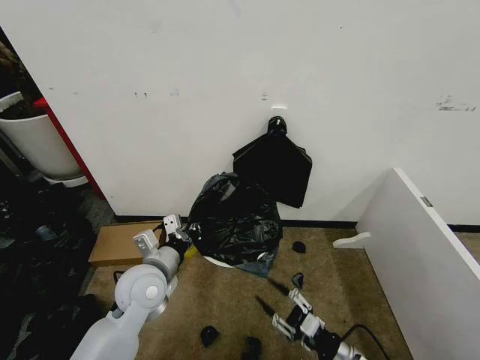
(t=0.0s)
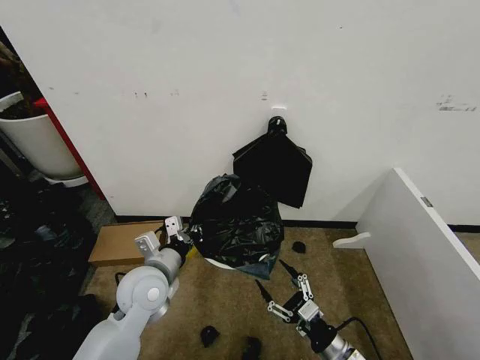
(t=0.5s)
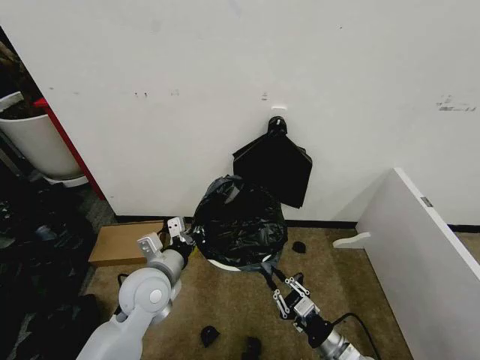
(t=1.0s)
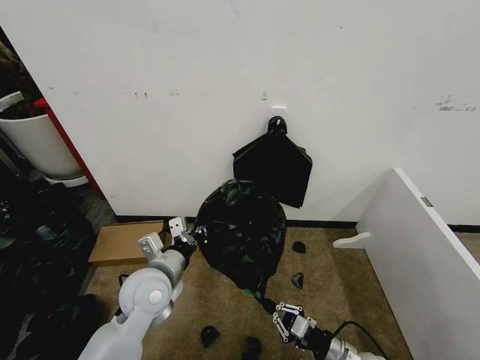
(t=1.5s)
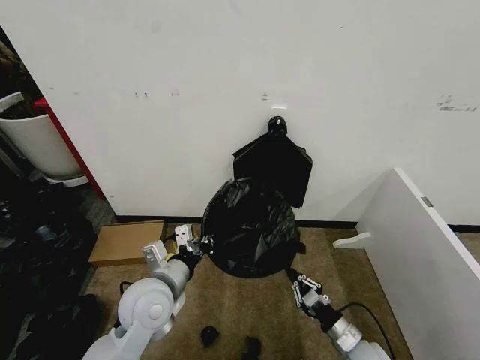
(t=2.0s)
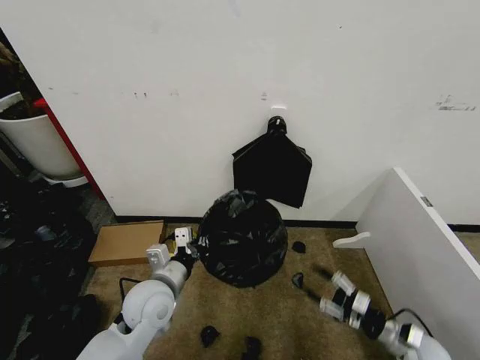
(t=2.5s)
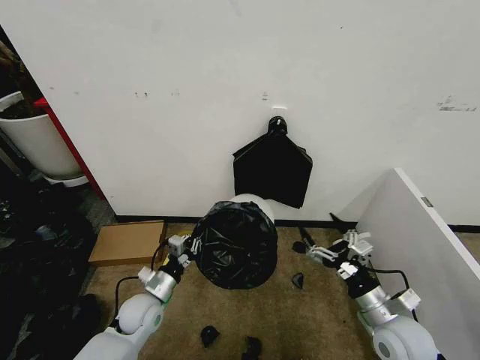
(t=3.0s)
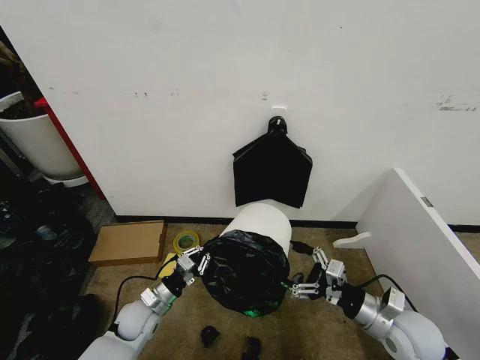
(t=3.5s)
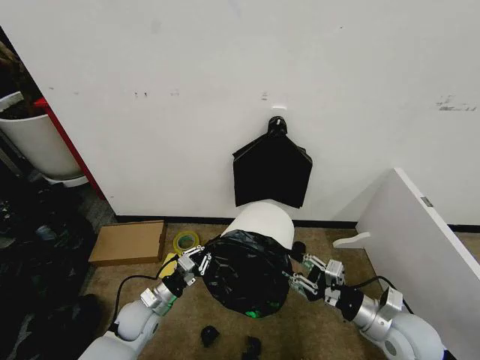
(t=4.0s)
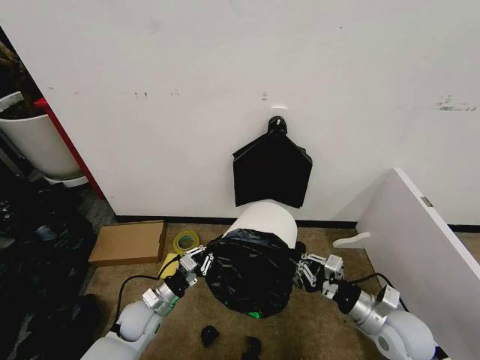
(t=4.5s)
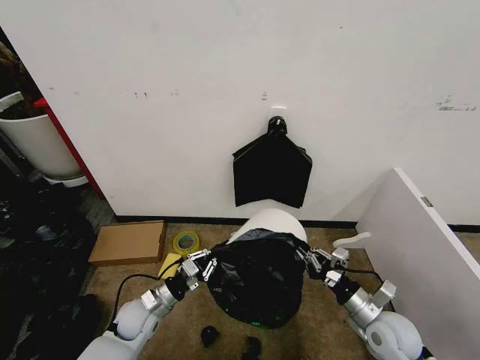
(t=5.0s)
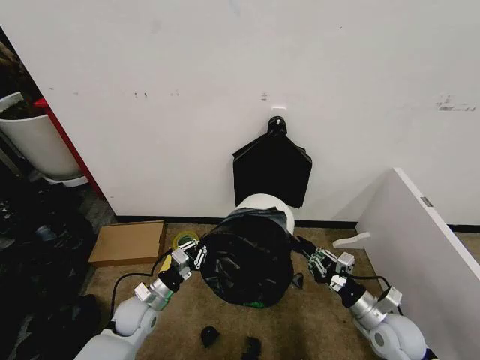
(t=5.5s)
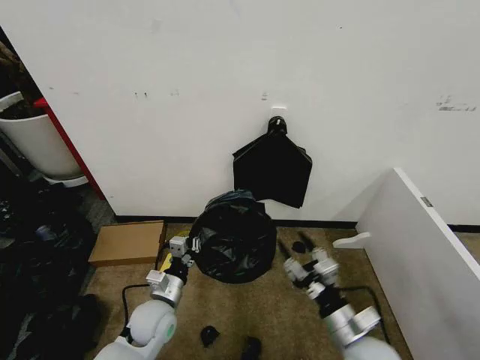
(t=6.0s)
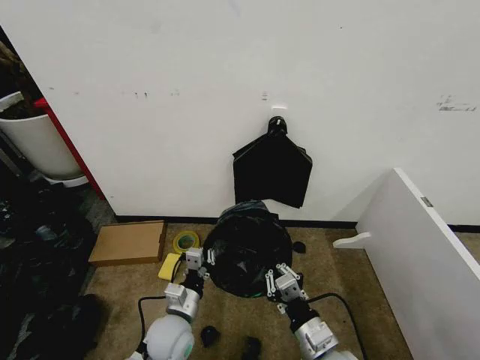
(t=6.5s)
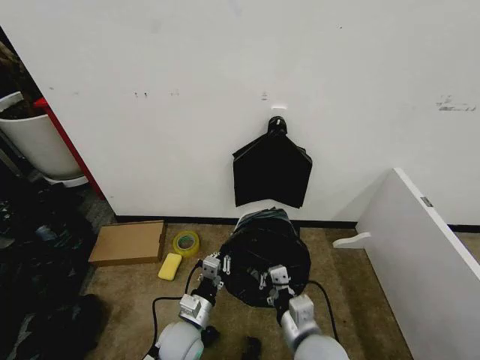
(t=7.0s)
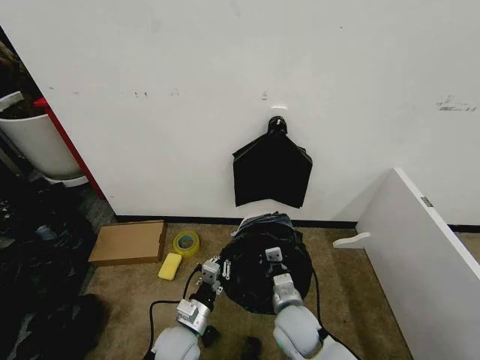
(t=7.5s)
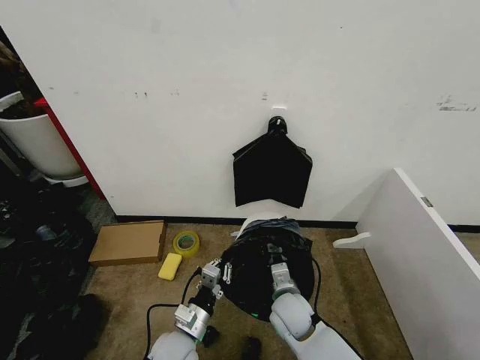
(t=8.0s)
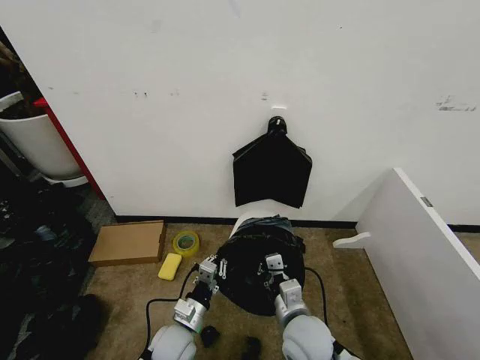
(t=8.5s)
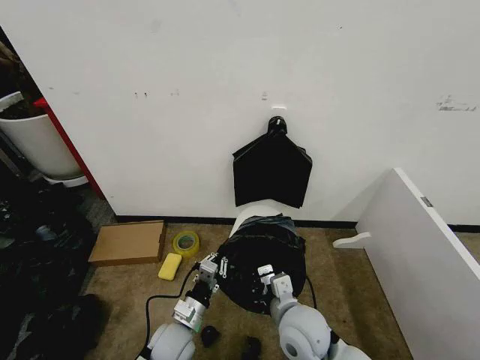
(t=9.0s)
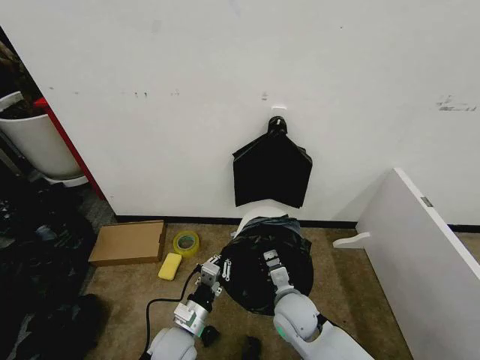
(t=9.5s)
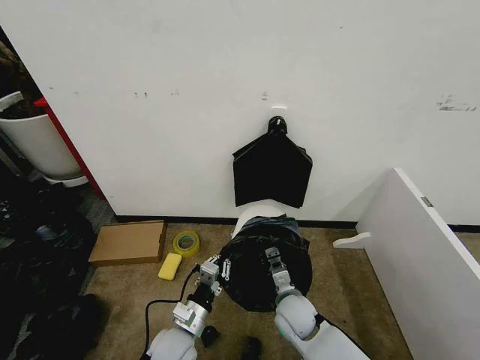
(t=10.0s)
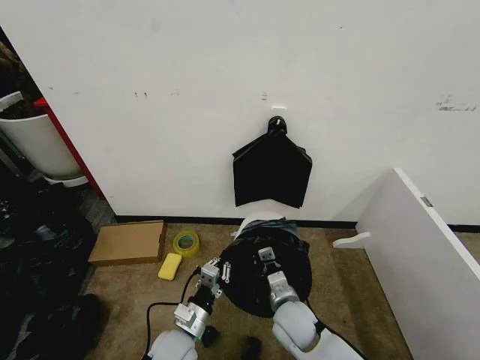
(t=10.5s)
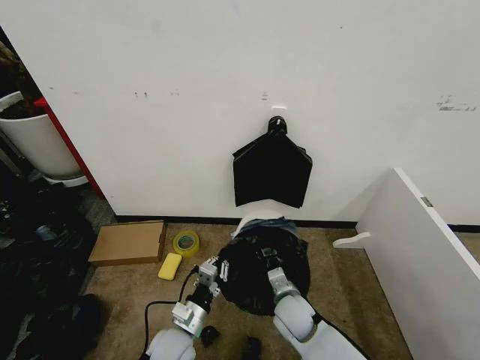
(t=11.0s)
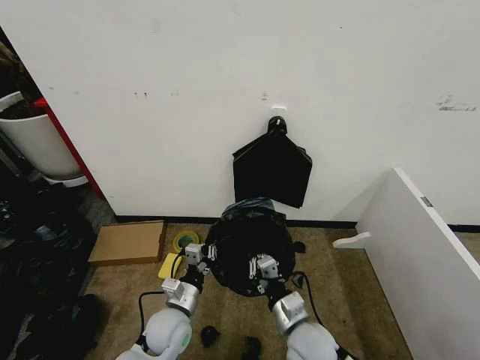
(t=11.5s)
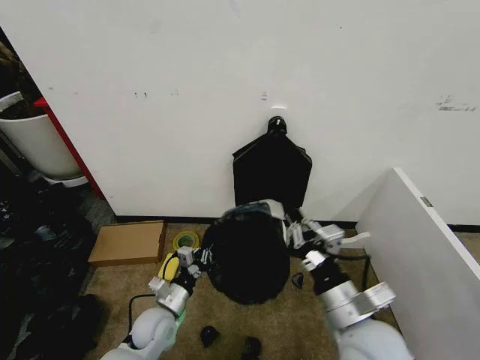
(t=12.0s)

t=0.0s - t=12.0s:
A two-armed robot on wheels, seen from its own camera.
Task of the whole recording: Place the garbage bag over the trash bin.
t=0.0s - t=2.0s: The right gripper changes place by roughly 5 cm, and closes.
t=2.0s - t=4.0s: The right gripper is displaced upward by about 15 cm, and opens its fingers. Meanwhile the left gripper moves downward and to the left, approximately 20 cm.
t=4.0s - t=6.0s: The left gripper changes place by roughly 5 cm. Meanwhile the right gripper goes roughly 5 cm to the left, and closes, then opens again.
t=6.0s - t=8.0s: The left gripper moves backward and to the right, some 10 cm. The right gripper travels to the left, forward and downward by approximately 20 cm, and closes its fingers.
t=8.0s - t=10.0s: The right gripper moves about 10 cm upward and comes back.
t=10.0s - t=12.0s: The right gripper goes about 20 cm upward and backward. Meanwhile the left gripper moves to the left and forward, about 5 cm.

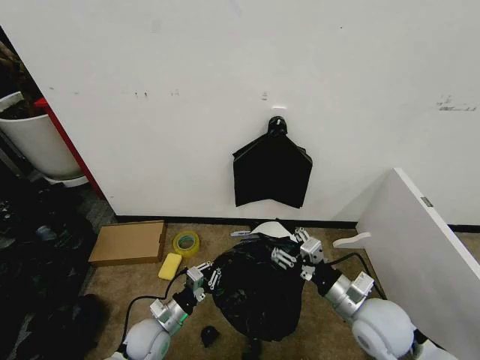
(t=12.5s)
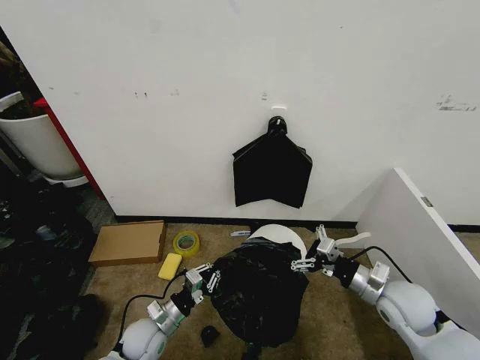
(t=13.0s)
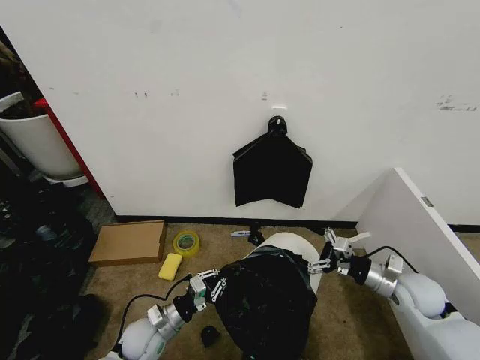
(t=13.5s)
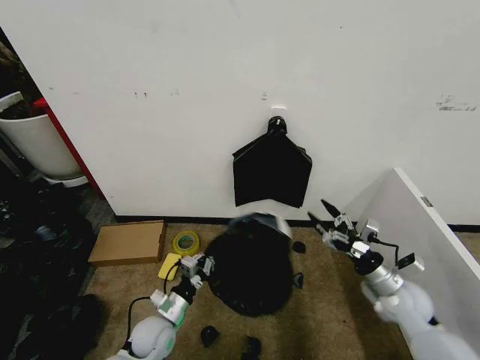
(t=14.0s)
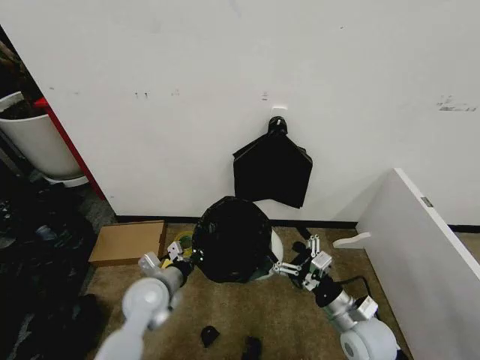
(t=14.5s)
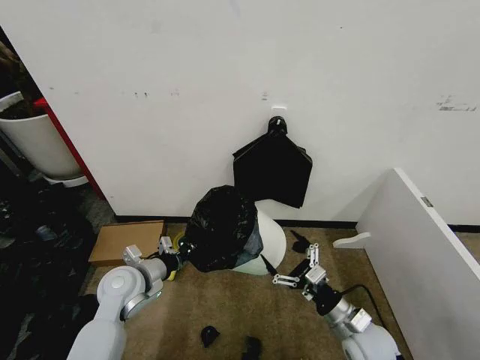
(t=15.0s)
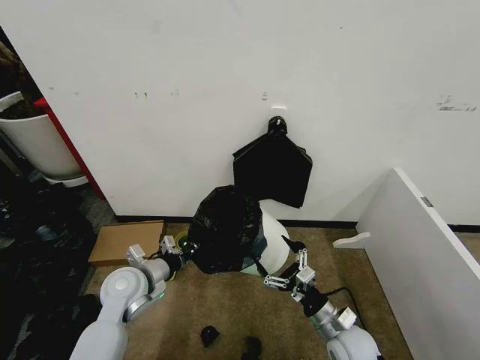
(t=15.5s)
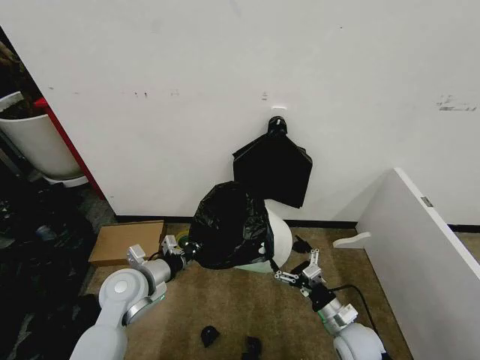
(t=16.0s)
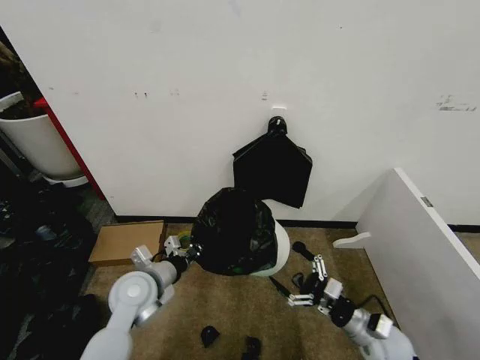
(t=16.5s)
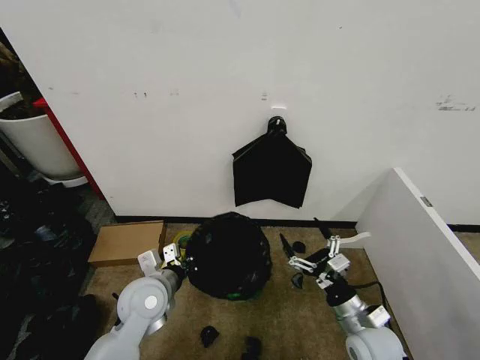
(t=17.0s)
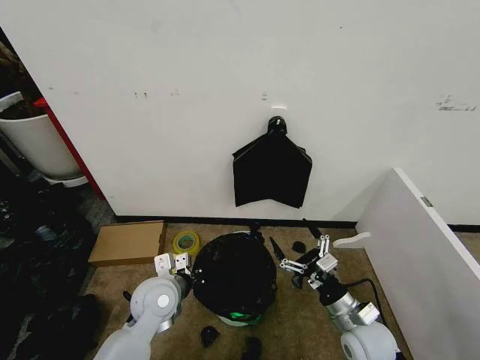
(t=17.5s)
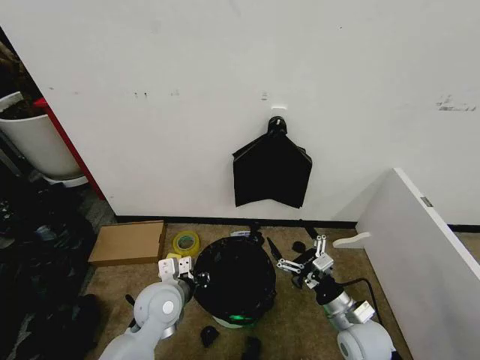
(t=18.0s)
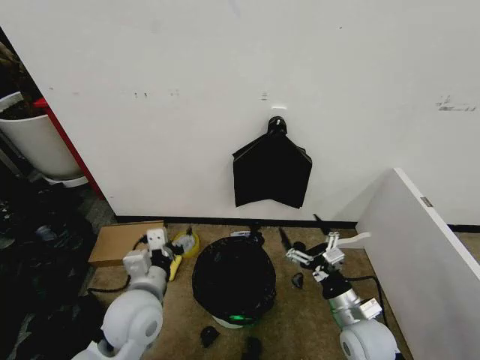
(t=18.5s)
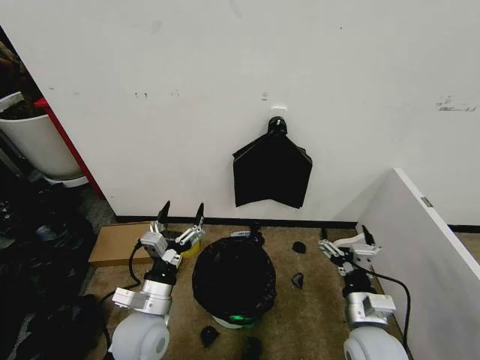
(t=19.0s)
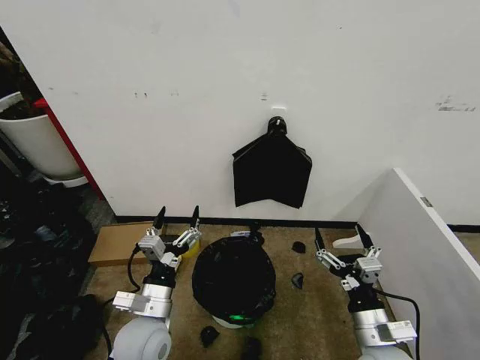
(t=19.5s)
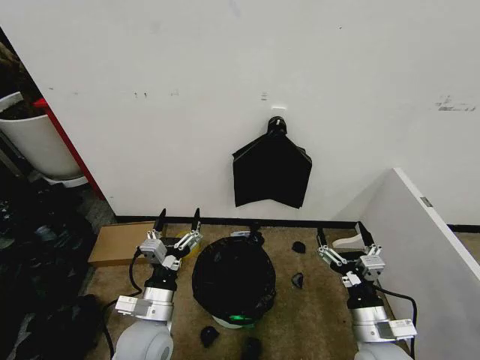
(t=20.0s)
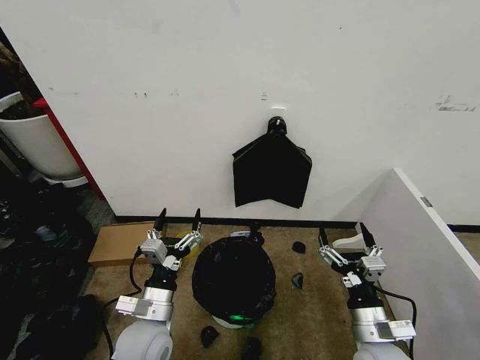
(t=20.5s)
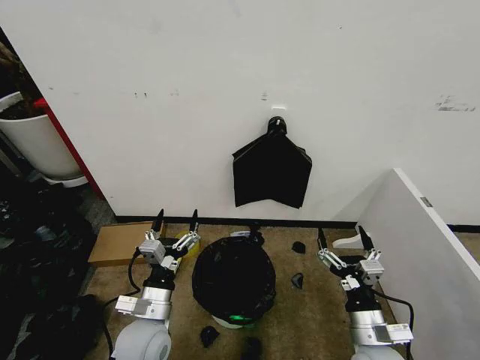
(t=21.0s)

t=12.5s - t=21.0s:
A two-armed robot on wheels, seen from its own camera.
Task of the whole recording: Place the garbage bag over the trash bin.
t=12.5s - t=14.5s: The right gripper is displaced downward by roughly 5 cm, reaches some 15 cm to the right, then returns, and opens up, while the left gripper travels upward by some 10 cm.
t=14.5s - t=16.5s: The right gripper shifts approximately 10 cm to the right and downward.
t=16.5s - t=19.0s: The right gripper moves upward and to the left, about 10 cm; the left gripper shifts some 10 cm backward, and opens up.
t=19.0s - t=21.0s: There are only small adjustments of the grippers.
